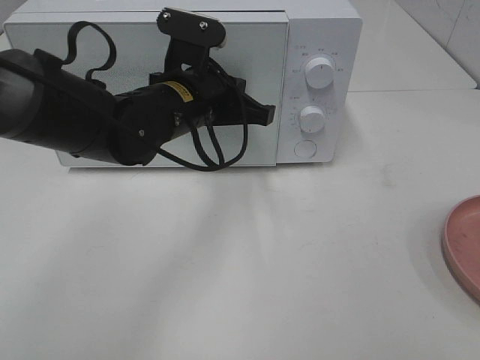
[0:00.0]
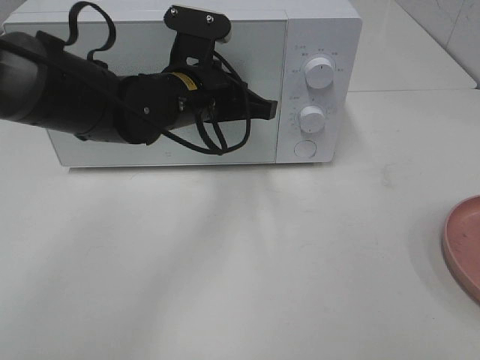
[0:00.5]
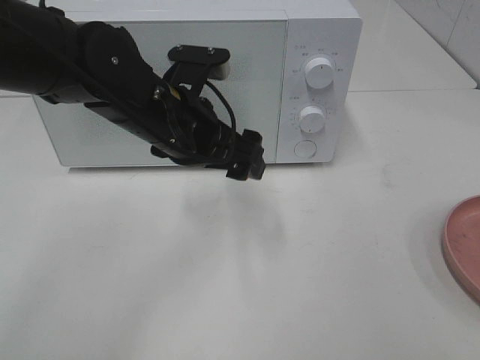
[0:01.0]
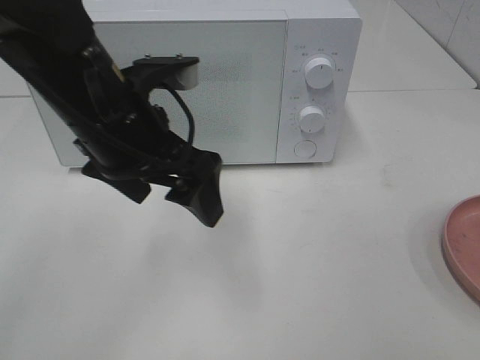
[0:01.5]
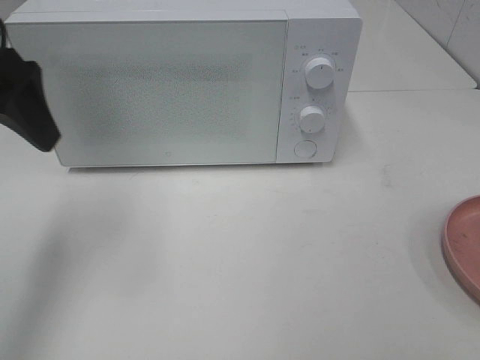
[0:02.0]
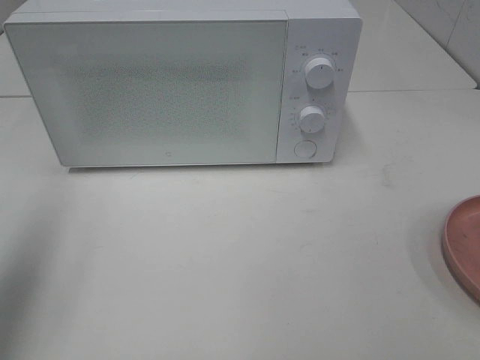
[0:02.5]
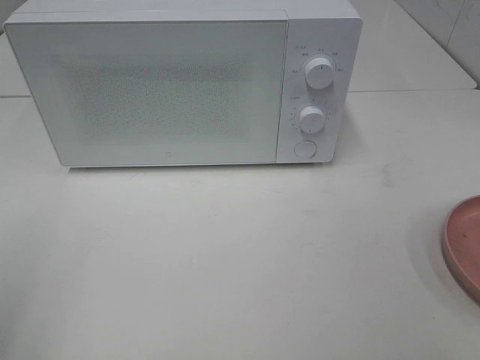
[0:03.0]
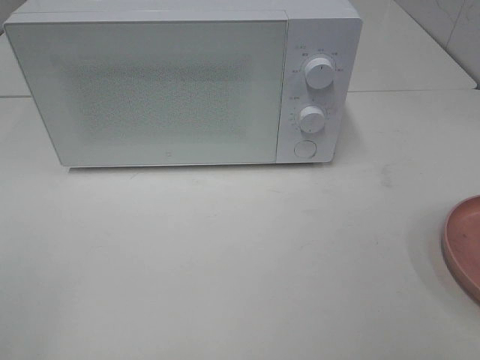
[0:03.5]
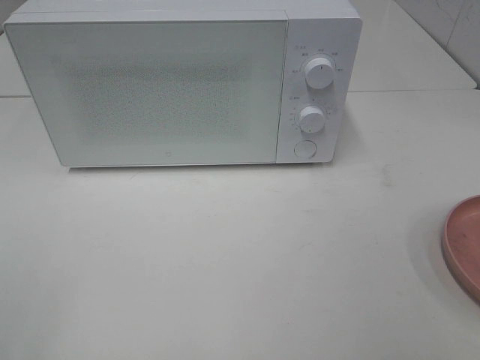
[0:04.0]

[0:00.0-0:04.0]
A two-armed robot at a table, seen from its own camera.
Task of the whole recording: Heat the burger.
0:00.0 to 0:02.0: The left gripper goes roughly 25 cm to the left, upward and backward, and opens.
0:02.0 to 0:04.0: The left gripper moves backward, some 25 cm.

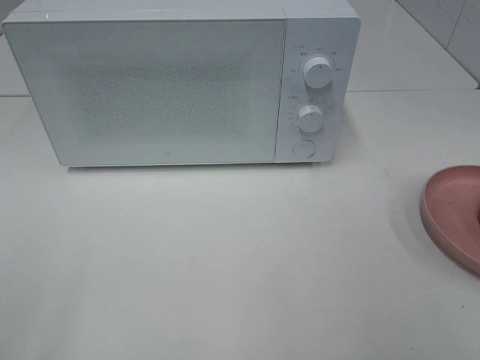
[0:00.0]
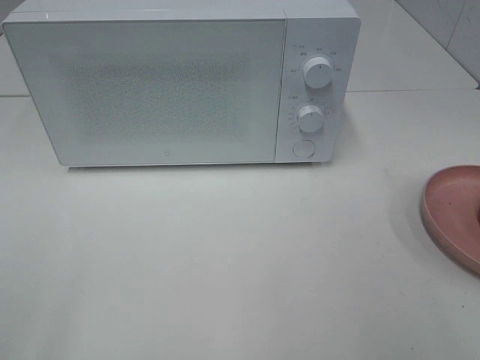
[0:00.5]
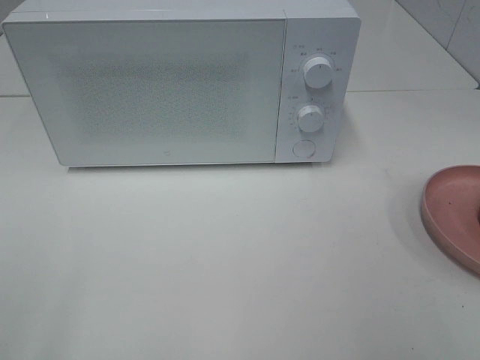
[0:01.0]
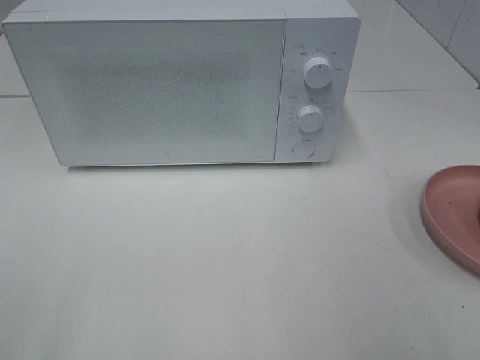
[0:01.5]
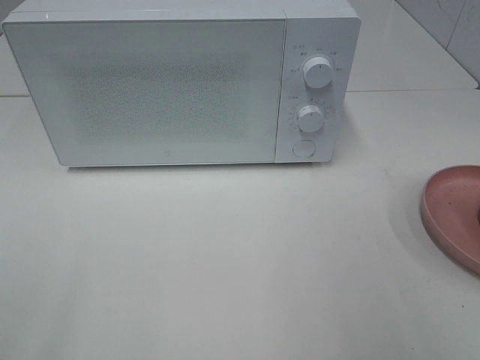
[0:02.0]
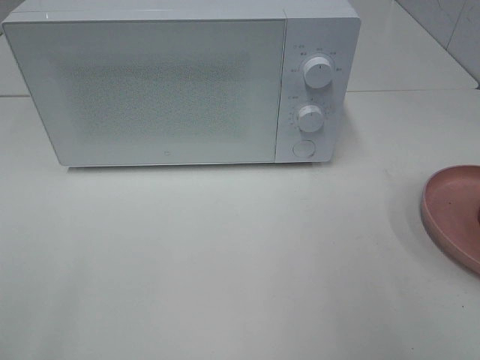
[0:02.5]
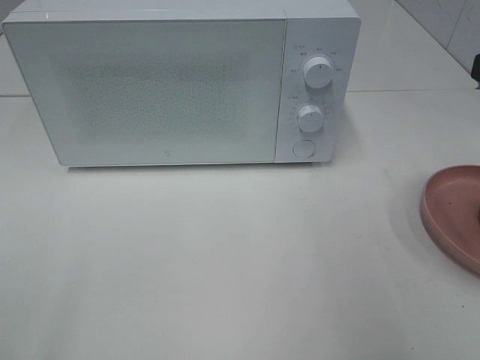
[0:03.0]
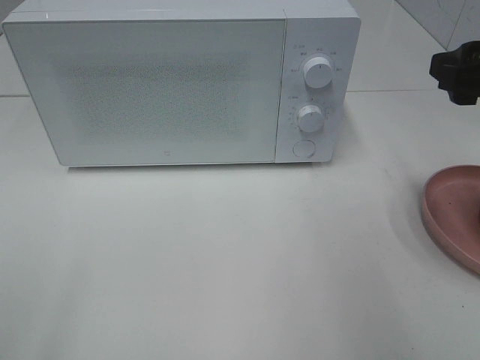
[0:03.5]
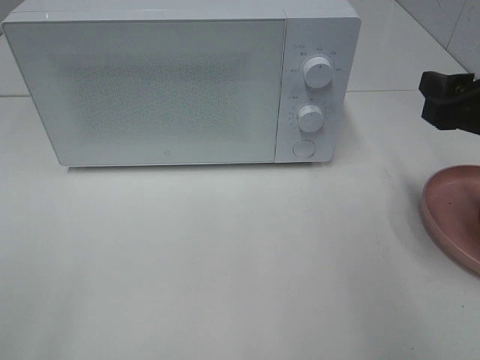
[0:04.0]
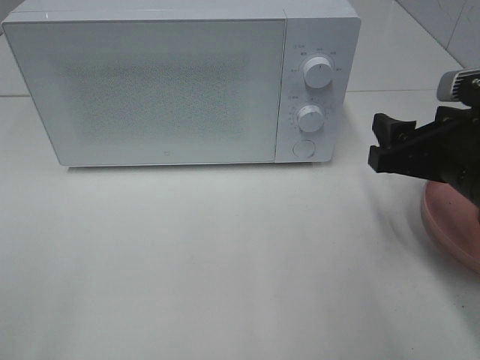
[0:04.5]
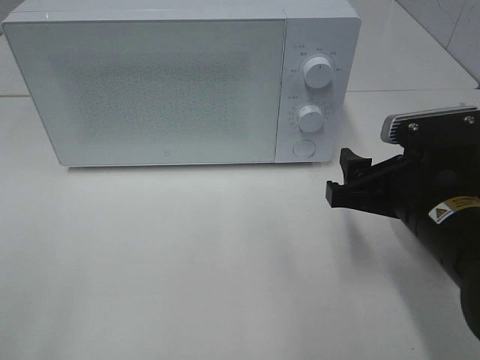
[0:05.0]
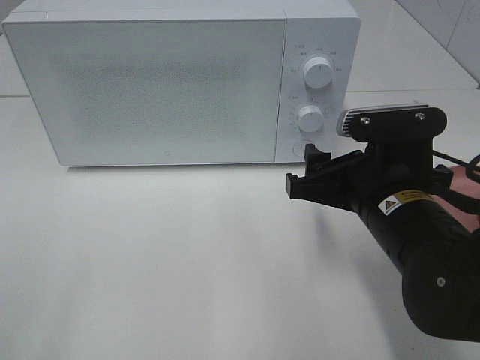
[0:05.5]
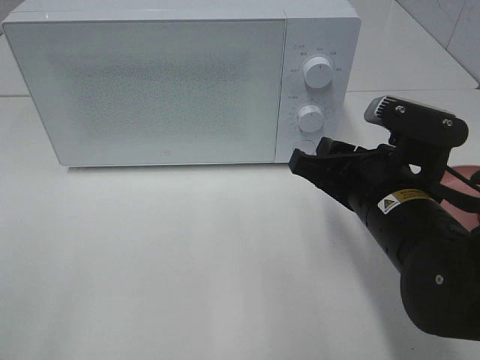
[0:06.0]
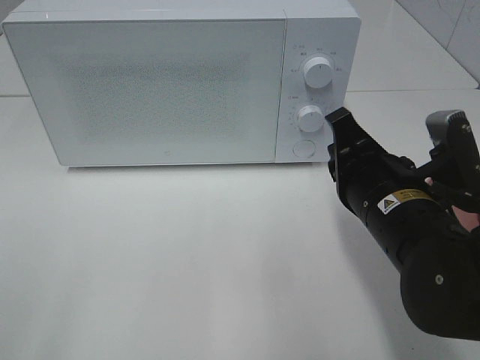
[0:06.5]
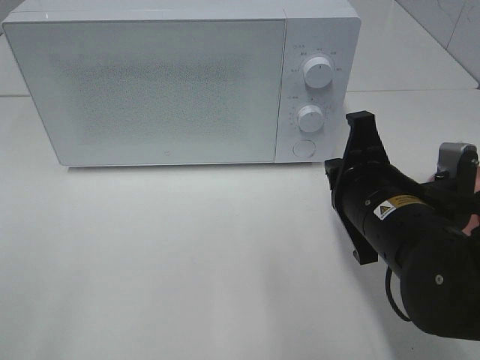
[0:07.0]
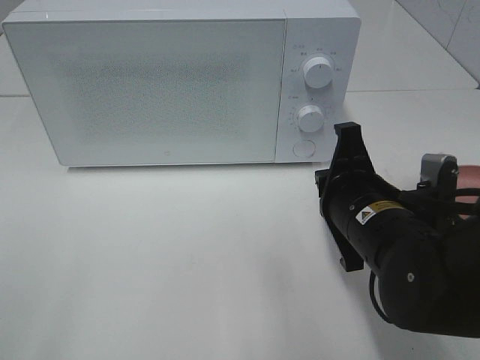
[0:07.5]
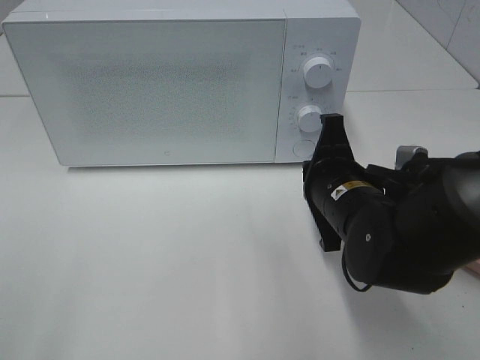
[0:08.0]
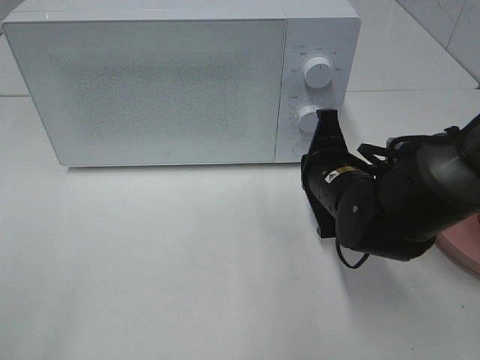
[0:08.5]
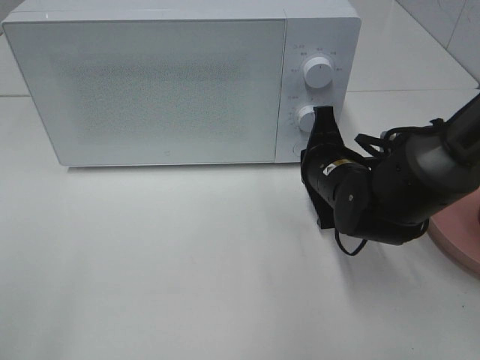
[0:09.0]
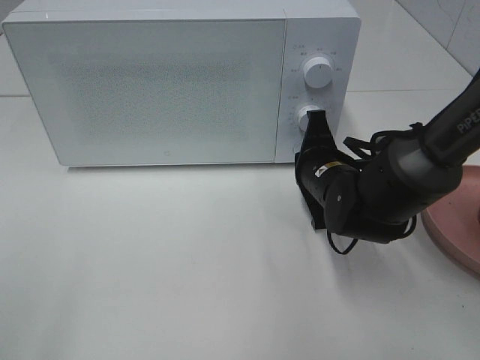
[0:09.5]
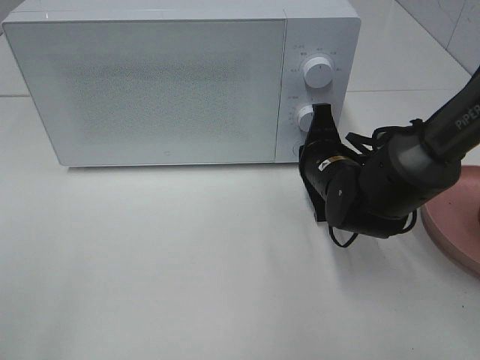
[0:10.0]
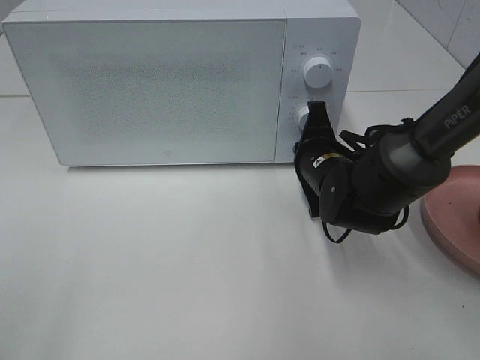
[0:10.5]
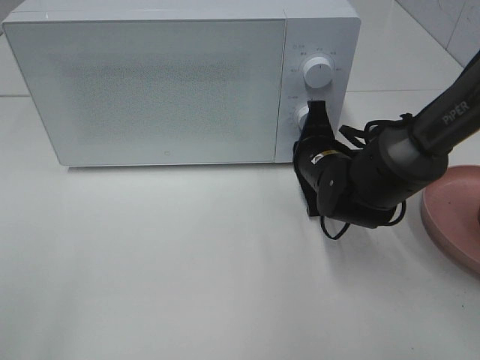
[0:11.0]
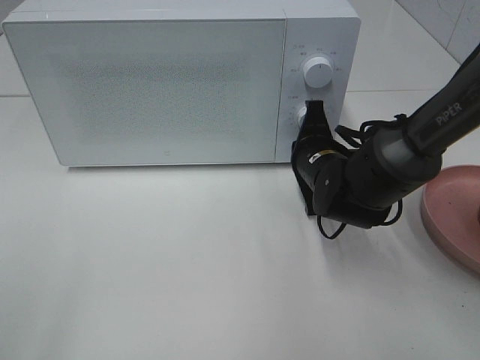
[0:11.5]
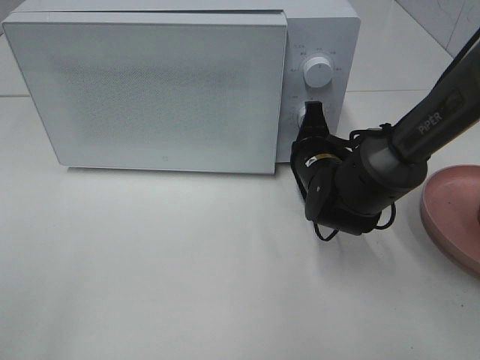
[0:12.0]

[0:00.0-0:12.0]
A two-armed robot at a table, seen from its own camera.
Task of the whole recording: Heat the burger.
0:02.0 to 0:04.0: The right gripper goes approximately 20 cm forward and downward.
0:04.0 to 0:06.0: The right gripper moves to the left and downward, about 15 cm.
0:06.0 to 0:08.0: The right gripper ends up about 5 cm from where it was, and closes its fingers.
0:08.0 to 0:10.0: The right gripper is displaced forward by some 5 cm.
0:10.0 to 0:12.0: The grippers move only a little.

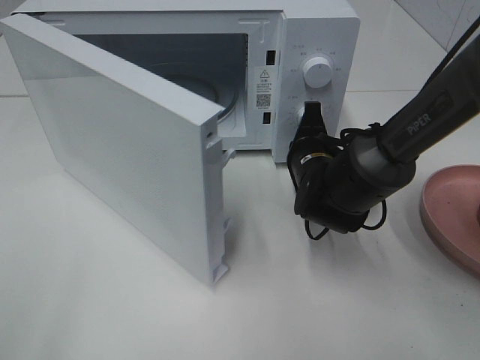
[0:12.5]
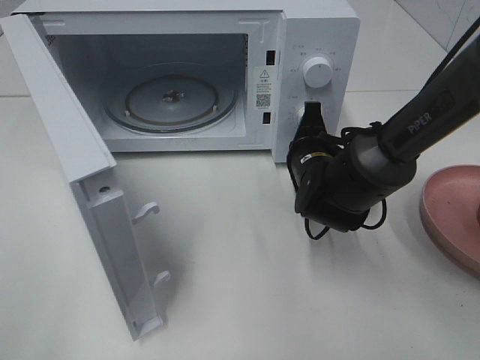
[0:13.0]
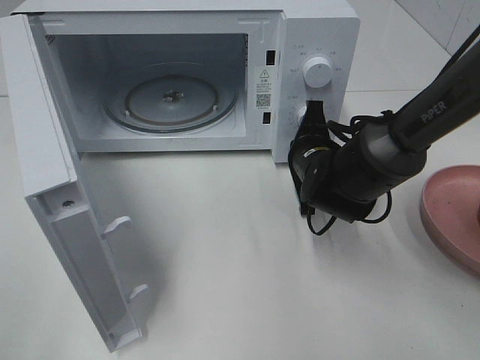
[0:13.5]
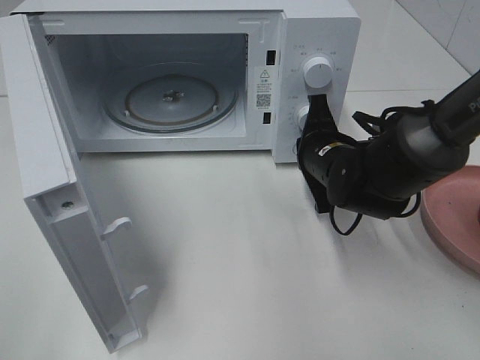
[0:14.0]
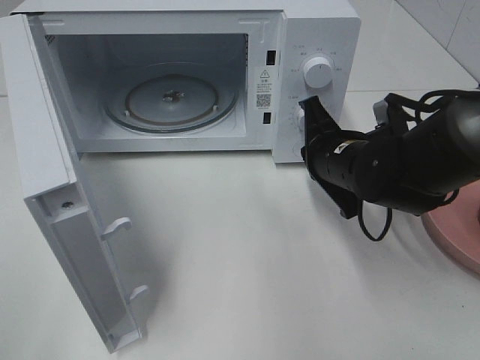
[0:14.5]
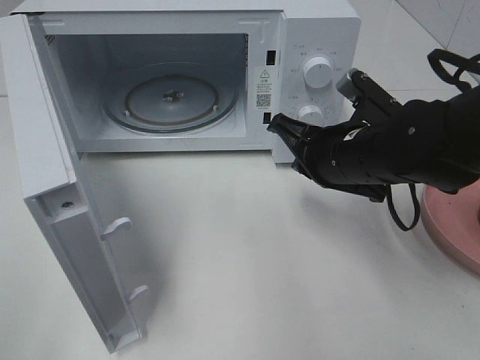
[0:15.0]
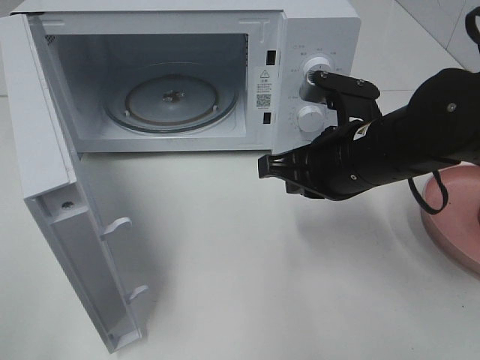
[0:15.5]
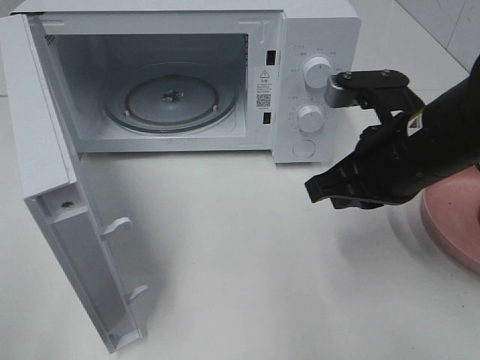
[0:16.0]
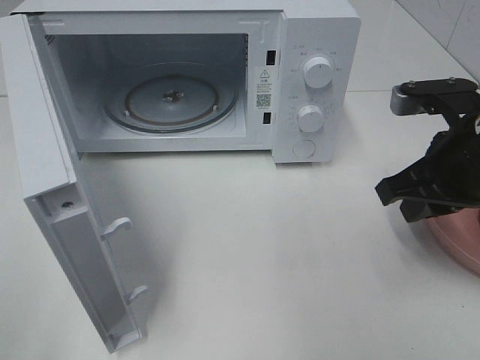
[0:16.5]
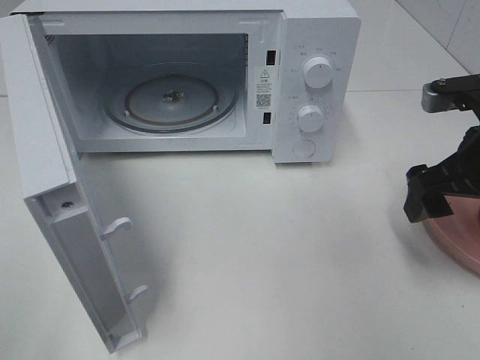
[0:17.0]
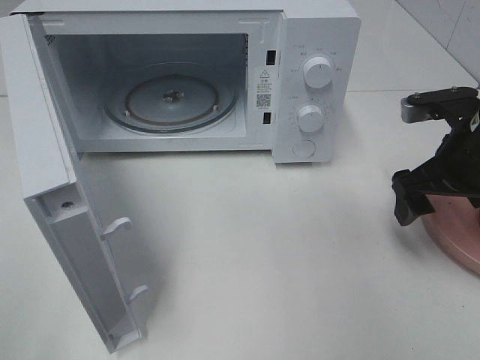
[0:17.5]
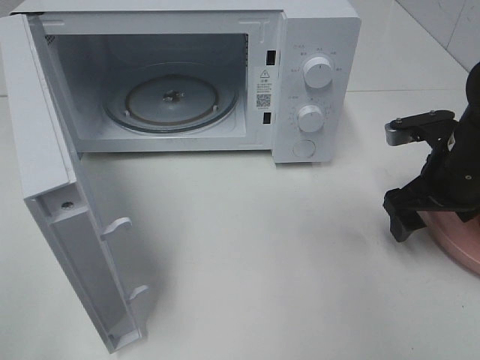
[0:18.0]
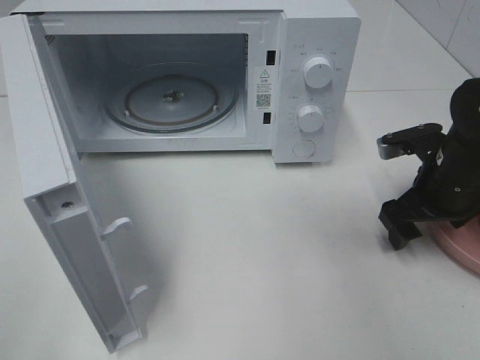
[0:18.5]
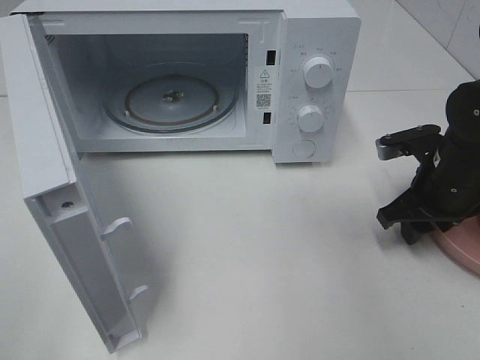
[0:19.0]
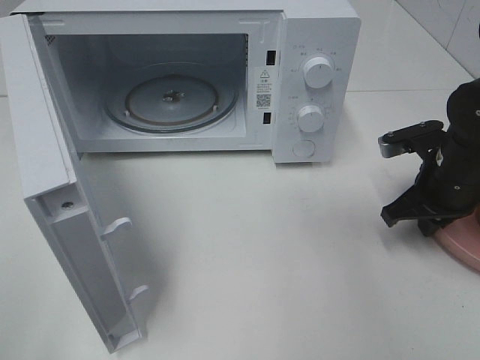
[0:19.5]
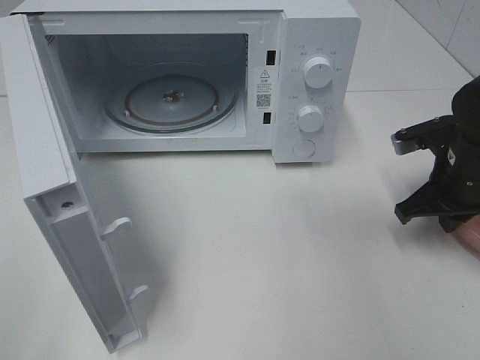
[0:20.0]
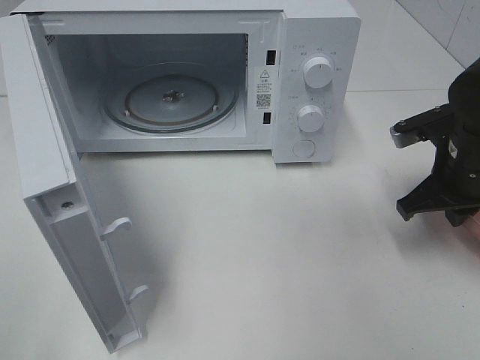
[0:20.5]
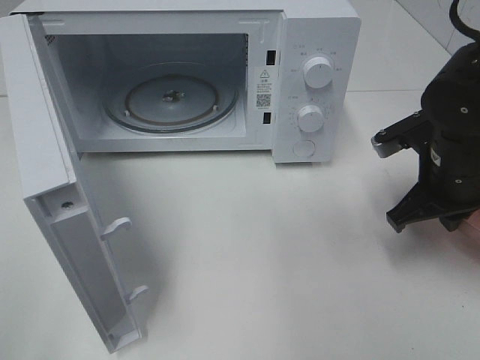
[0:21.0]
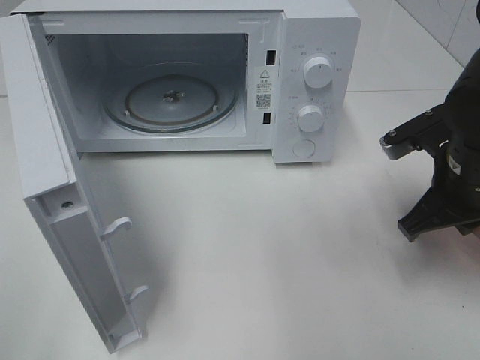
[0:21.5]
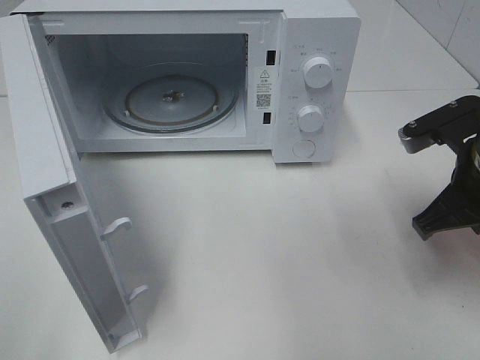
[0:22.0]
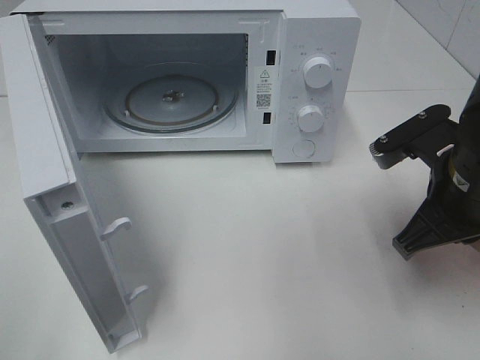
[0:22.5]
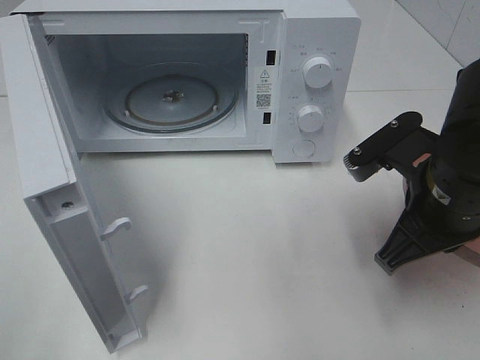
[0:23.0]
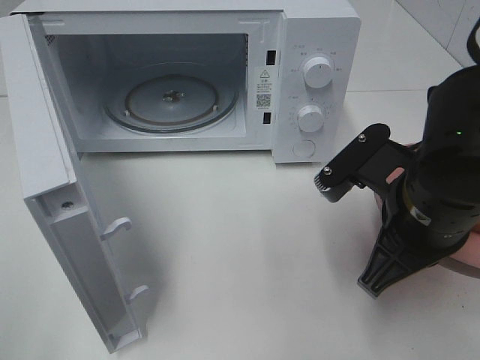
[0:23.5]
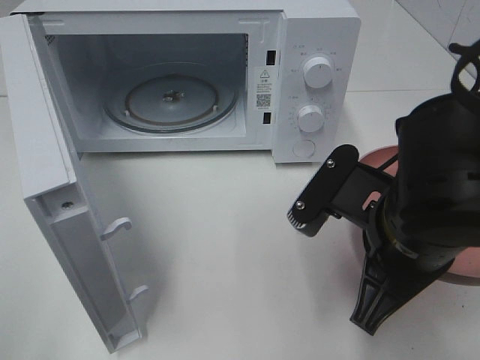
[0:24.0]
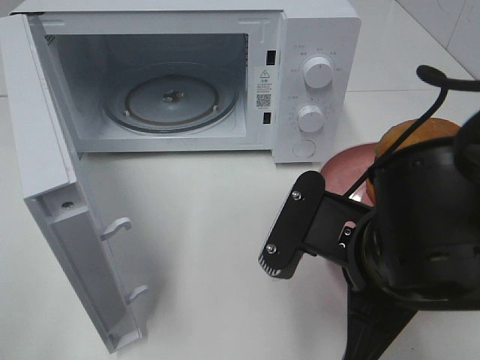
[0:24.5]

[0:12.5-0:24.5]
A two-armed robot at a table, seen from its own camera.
Task of the whole recording: Heat the burger.
Step, 0:14.5 to 0:19.5: Right hand: grab the plate with the hamburger.
0:12.5 to 0:14.5: The right gripper changes place by some 5 cm.
0:14.5 to 0:16.5: The right gripper moves to the right, upward and backward, roughly 15 cm.
0:16.5 to 0:18.5: The right gripper is displaced downward and forward by about 10 cm, and opens up.
0:18.5 to 0:20.5: The right gripper closes.
0:20.5 to 0:22.5: The right gripper travels backward by roughly 5 cm.
0:22.5 to 0:24.5: The right gripper shifts approximately 15 cm to the left and backward.
